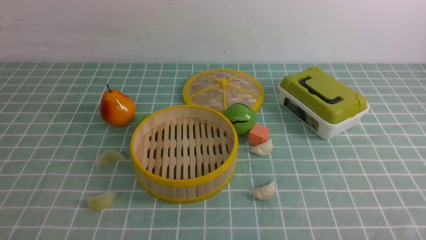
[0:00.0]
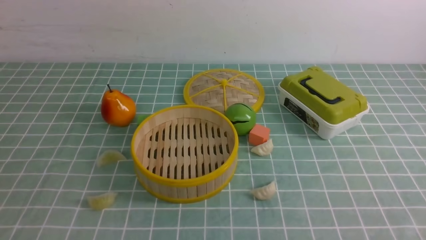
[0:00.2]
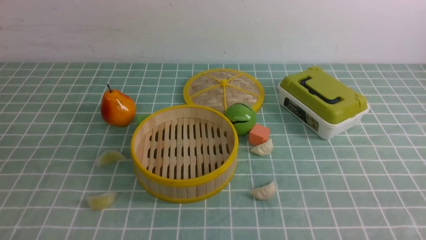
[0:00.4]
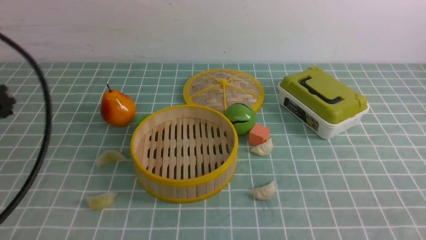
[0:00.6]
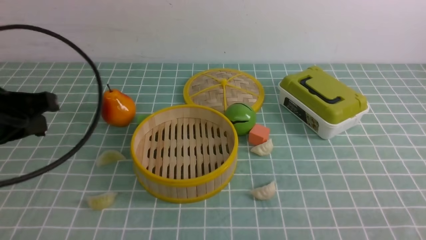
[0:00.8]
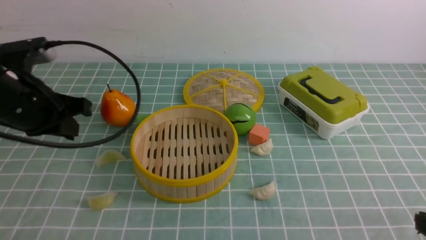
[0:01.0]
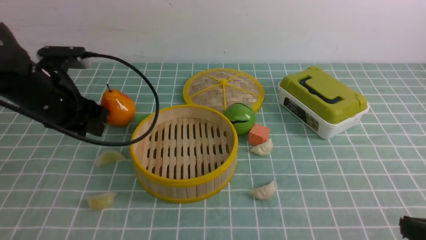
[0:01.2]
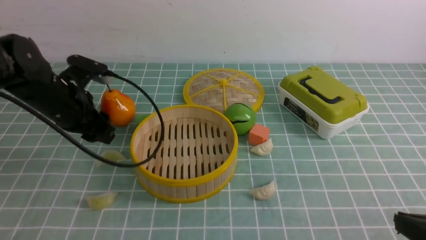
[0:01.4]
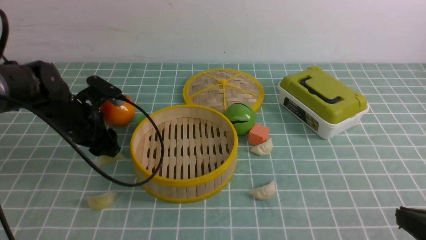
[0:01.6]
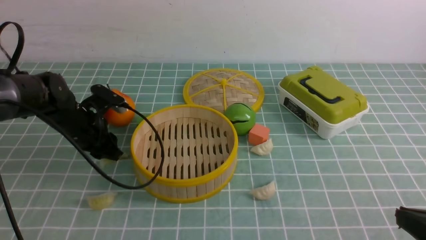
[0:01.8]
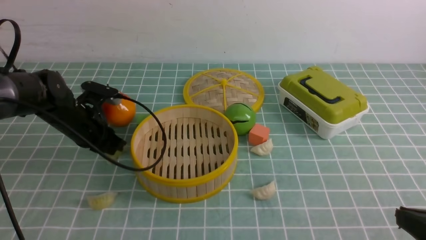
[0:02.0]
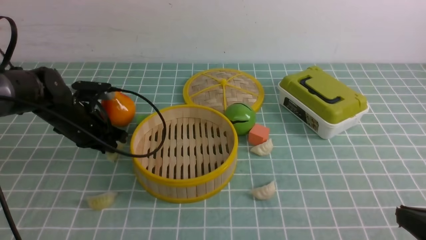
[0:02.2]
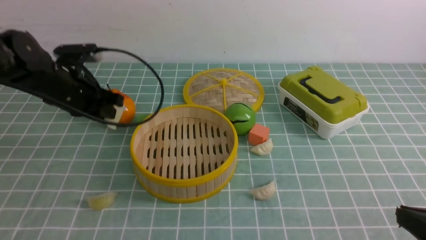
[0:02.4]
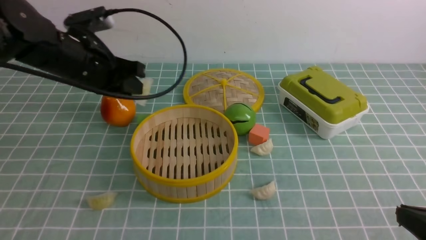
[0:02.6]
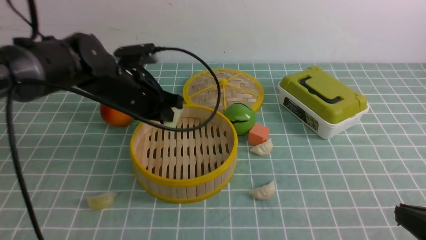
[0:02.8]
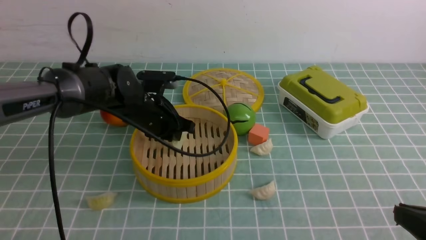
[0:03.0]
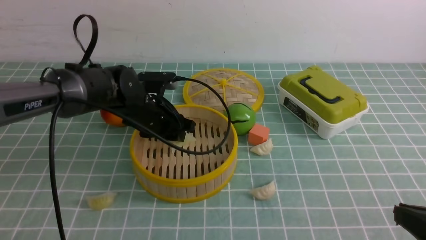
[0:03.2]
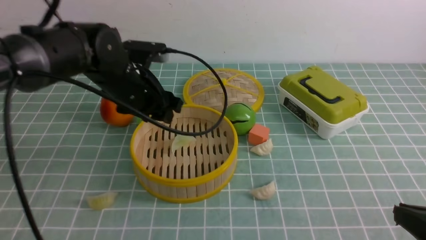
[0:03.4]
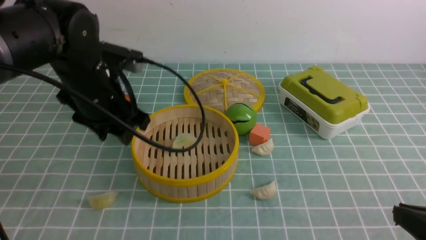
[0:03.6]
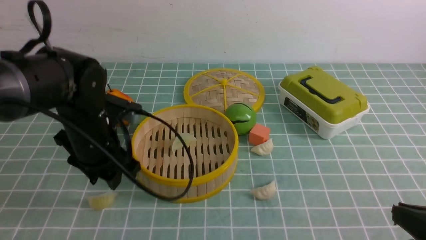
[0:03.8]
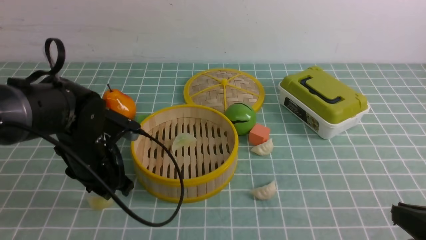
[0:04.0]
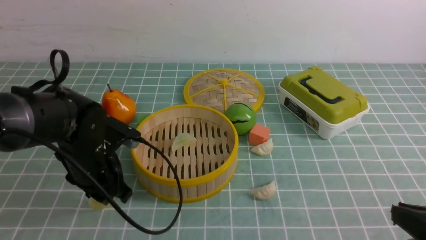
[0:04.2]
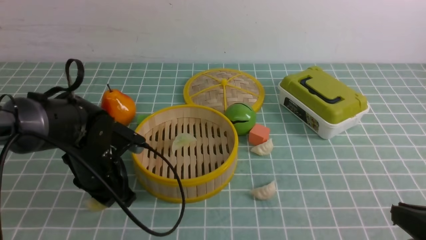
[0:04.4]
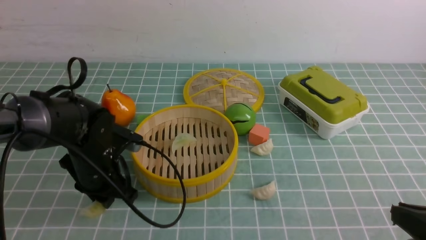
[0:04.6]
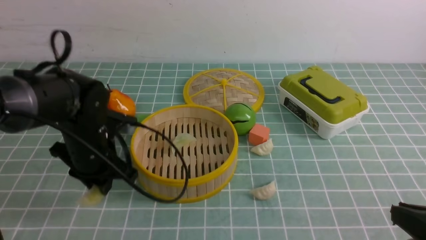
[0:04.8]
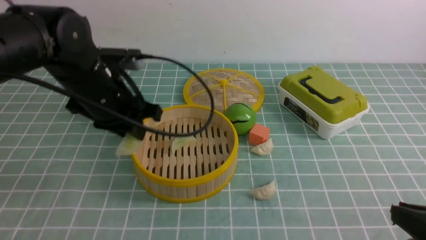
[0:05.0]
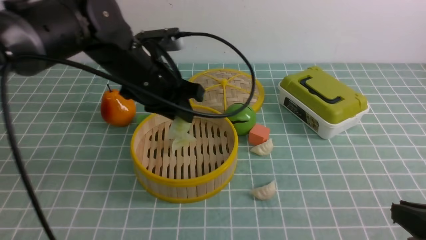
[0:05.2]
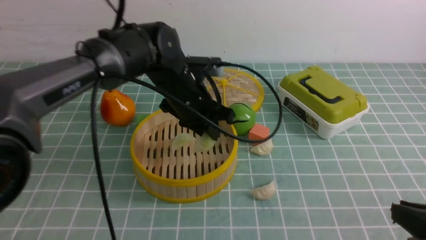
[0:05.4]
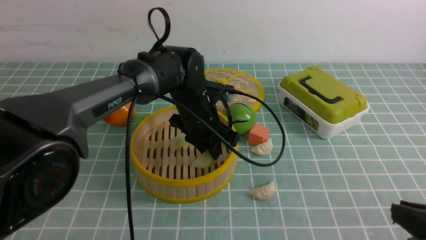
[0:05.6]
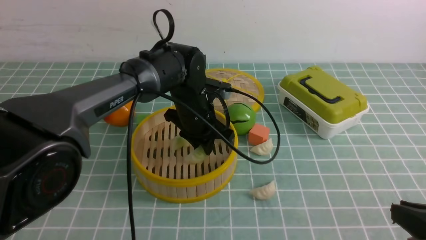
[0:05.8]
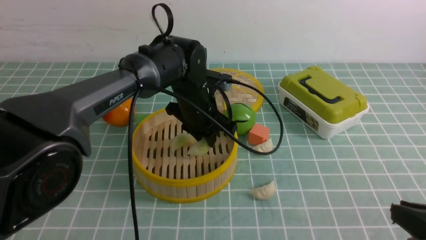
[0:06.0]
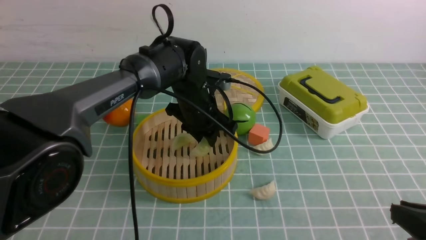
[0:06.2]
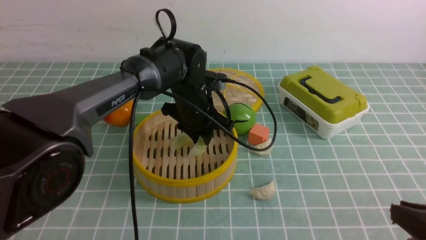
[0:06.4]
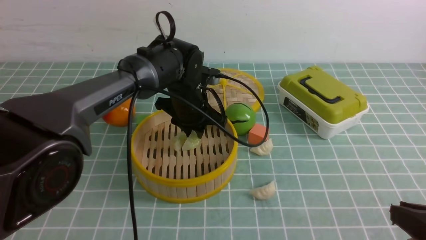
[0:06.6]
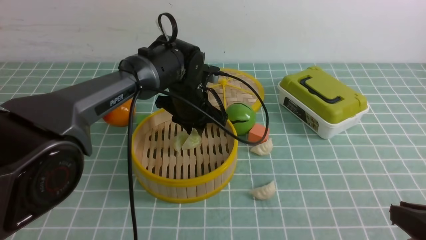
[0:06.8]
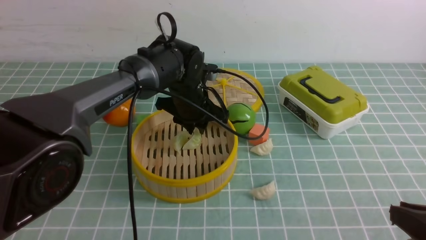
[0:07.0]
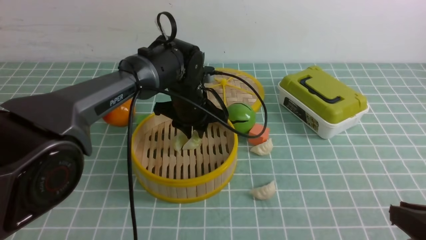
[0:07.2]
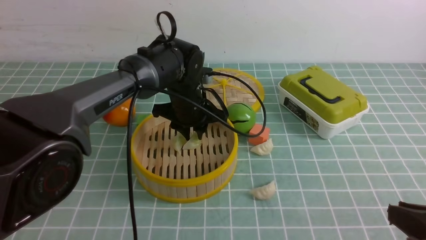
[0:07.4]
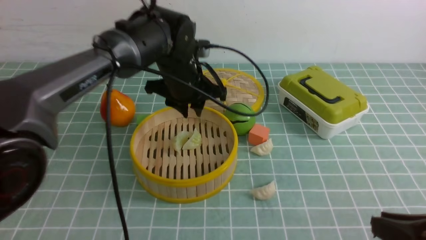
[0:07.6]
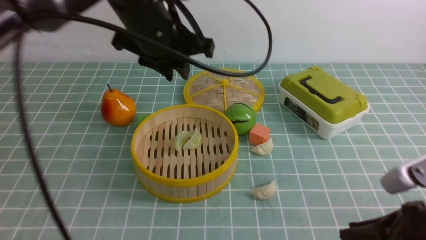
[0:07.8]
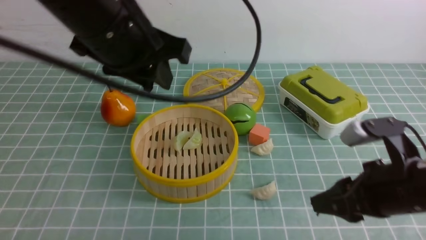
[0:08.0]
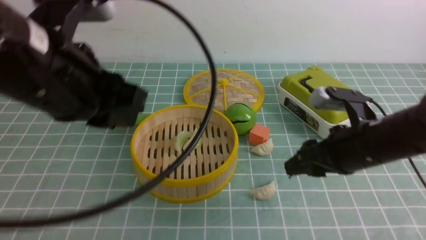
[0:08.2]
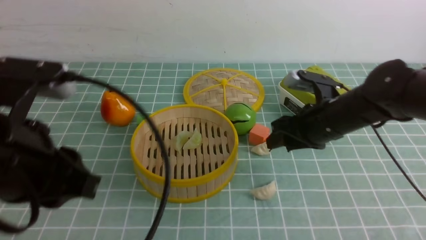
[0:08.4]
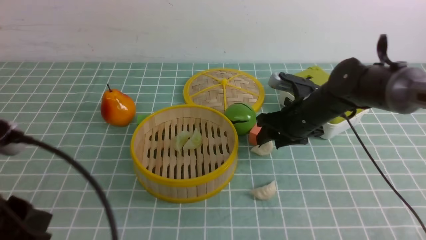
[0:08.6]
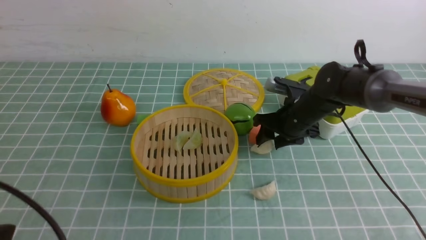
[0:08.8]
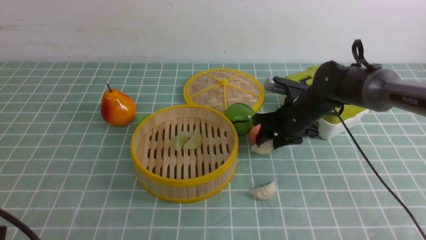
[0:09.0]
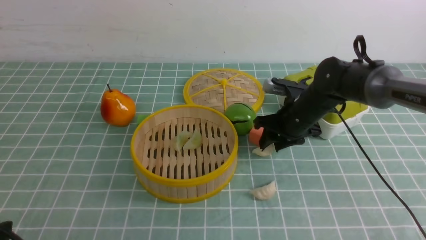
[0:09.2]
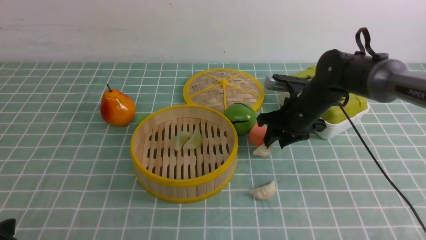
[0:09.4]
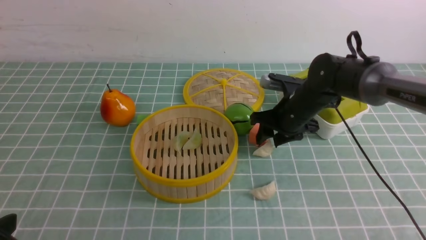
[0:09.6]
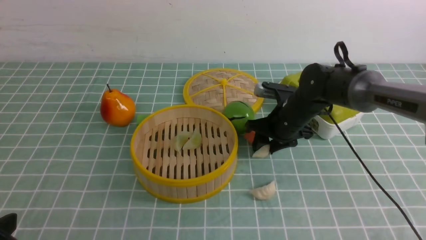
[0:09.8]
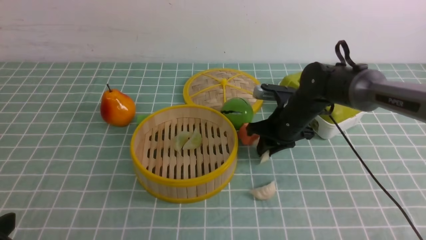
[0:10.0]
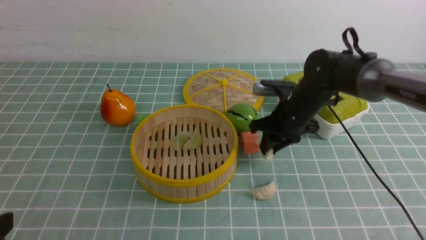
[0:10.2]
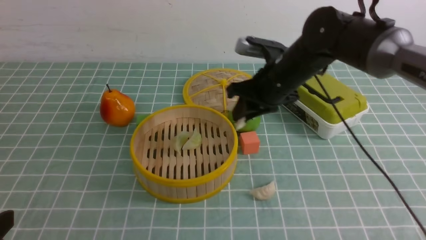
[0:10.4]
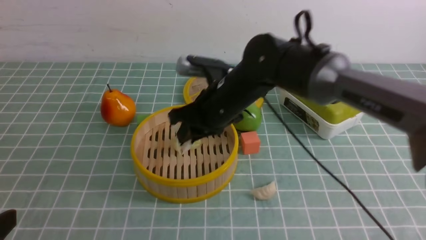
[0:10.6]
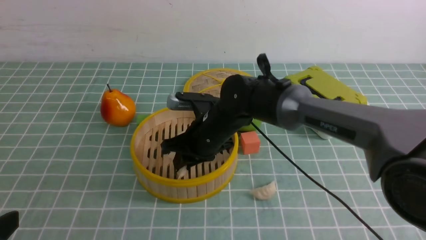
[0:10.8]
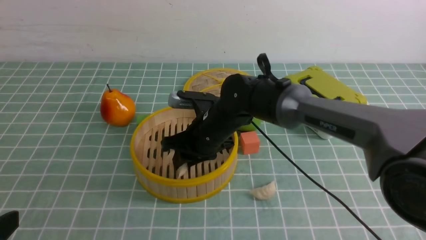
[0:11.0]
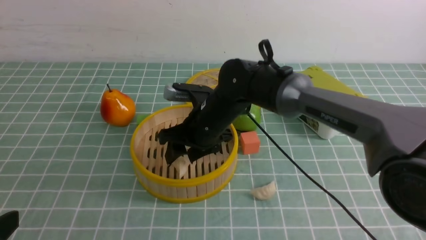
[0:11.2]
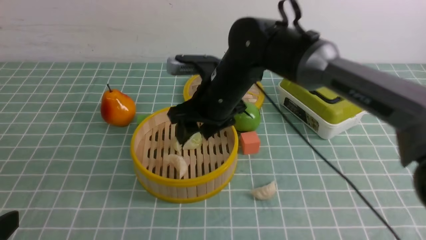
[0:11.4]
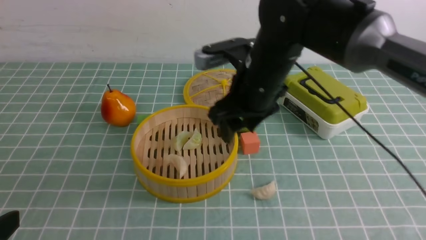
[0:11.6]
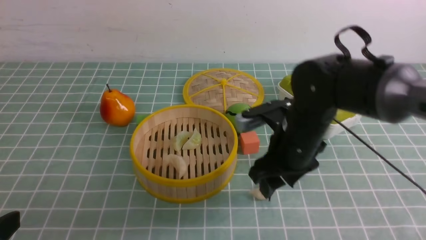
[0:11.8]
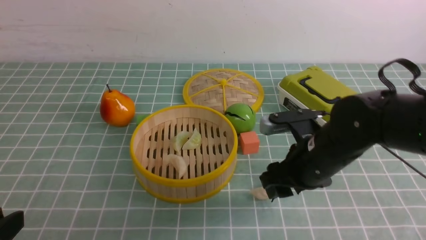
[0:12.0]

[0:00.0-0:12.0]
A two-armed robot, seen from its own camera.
Task of the whole recording: put the dumplings into the steamer on the table with the blue tablecloth.
Step, 0:00.0 to 0:02.6: use the left arm to grab a dumpling.
Step, 0:02.8 to 0:03.6: use the left arm to put the dumpling into the steamer.
Step, 0:03.8 to 0:05.0: use the left arm to grab a dumpling.
Step, 0:05.2 to 0:07.8: use the left arm to put the dumpling into the steamer.
Step, 0:08.0 to 0:10.2: use the right arm to grab a dumpling.
Step, 0:10.4 to 0:11.4: use the right arm to put the dumpling into the steamer.
0:00.0 to 0:01.6: The left gripper goes roughly 35 cm forward, and opens up; the right gripper is displaced forward by about 10 cm.
0:01.6 to 0:03.0: The left gripper heads to the right, covering about 10 cm, and closes.
0:03.0 to 0:04.4: The left gripper travels backward and to the left by about 10 cm.
0:04.4 to 0:06.0: The left gripper moves to the right and forward, roughly 20 cm.
0:06.0 to 0:07.6: The left gripper moves upward, some 10 cm.
0:07.6 to 0:09.0: The right gripper heads forward, covering roughly 30 cm, and opens up. Meanwhile the left gripper travels backward and to the left by some 40 cm.
0:09.0 to 0:10.4: The right gripper goes approximately 10 cm to the left and upward, and closes up.
0:10.4 to 0:12.0: The right gripper heads backward and to the right, covering roughly 10 cm, and opens its fingers.

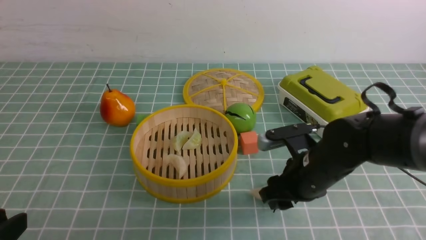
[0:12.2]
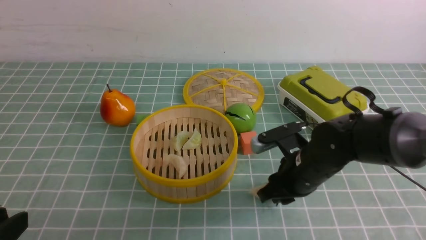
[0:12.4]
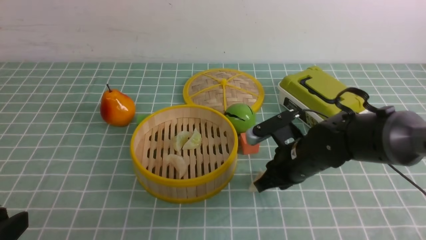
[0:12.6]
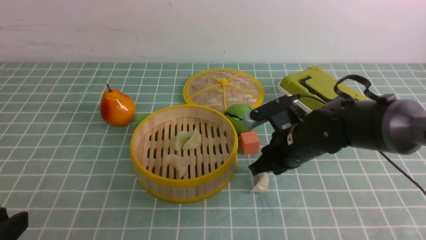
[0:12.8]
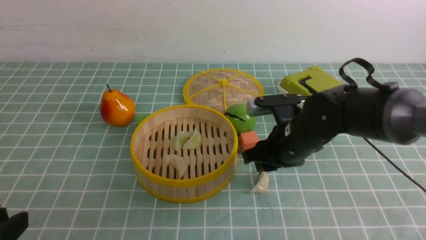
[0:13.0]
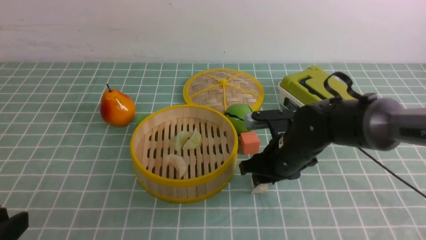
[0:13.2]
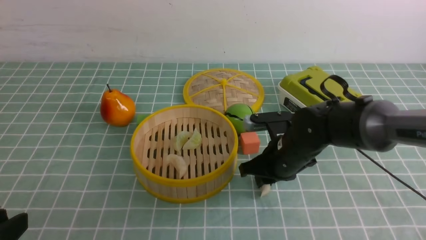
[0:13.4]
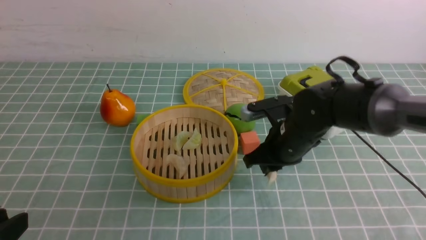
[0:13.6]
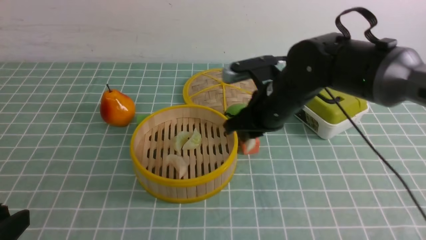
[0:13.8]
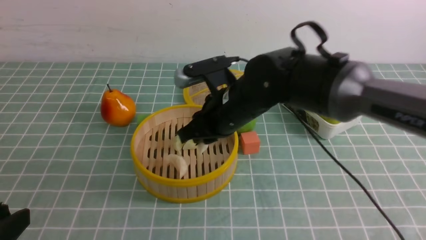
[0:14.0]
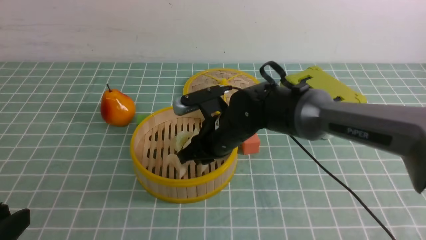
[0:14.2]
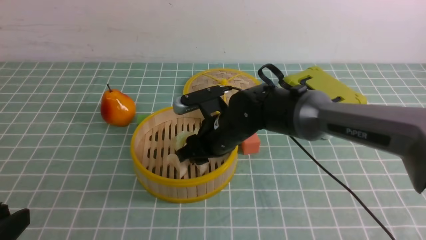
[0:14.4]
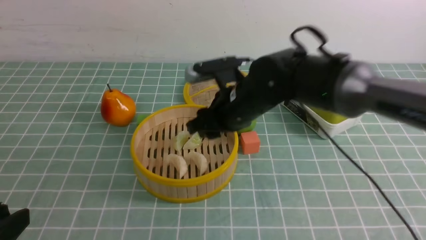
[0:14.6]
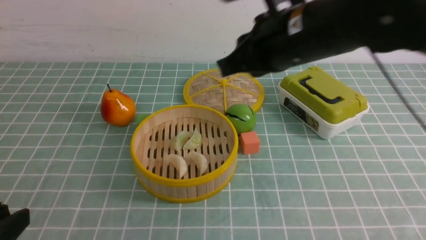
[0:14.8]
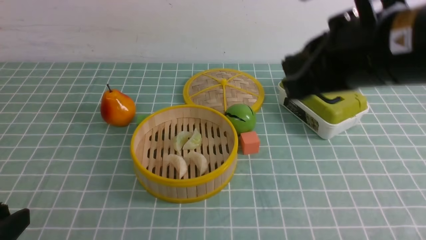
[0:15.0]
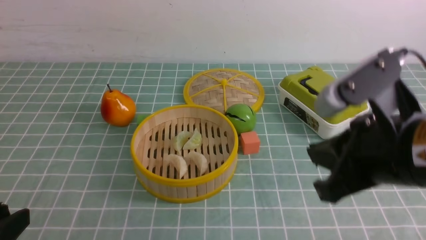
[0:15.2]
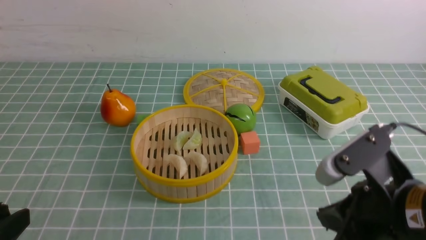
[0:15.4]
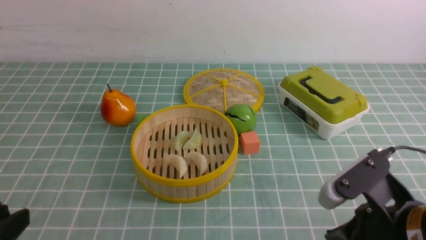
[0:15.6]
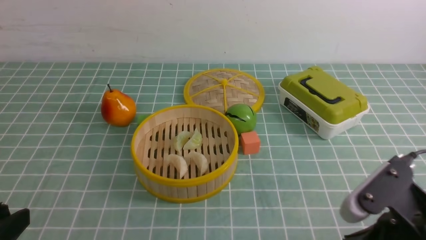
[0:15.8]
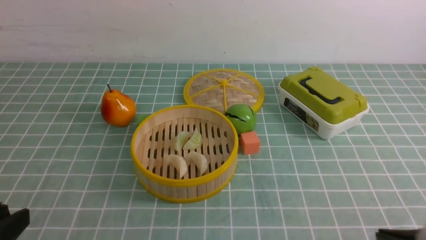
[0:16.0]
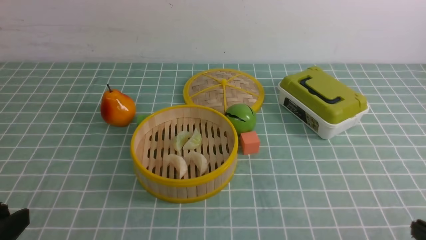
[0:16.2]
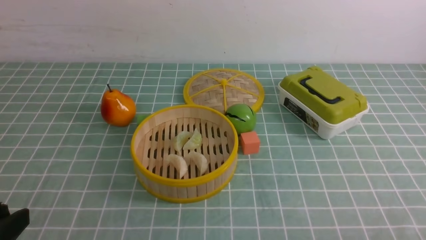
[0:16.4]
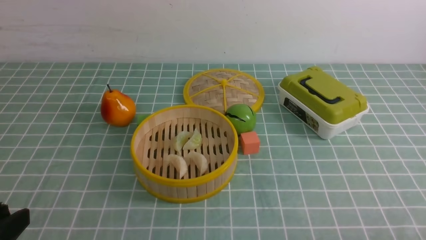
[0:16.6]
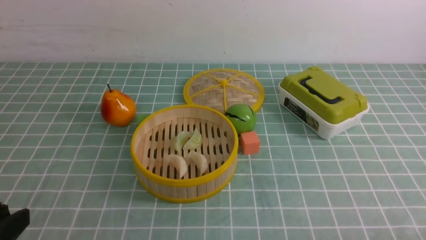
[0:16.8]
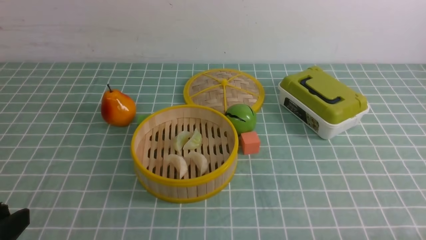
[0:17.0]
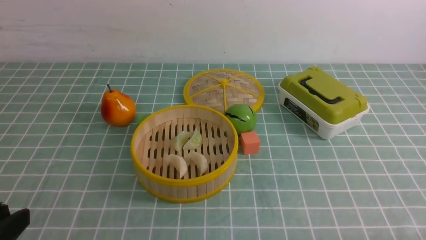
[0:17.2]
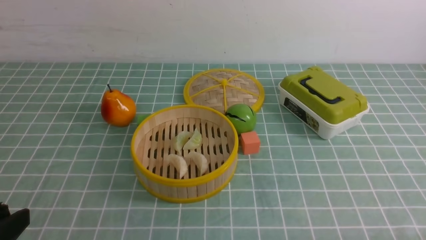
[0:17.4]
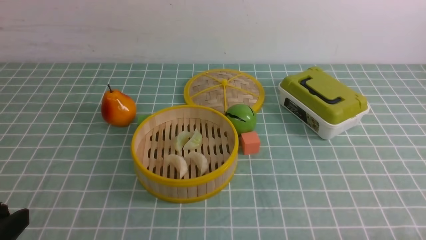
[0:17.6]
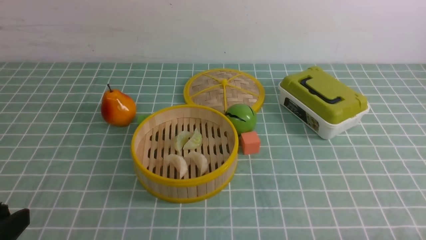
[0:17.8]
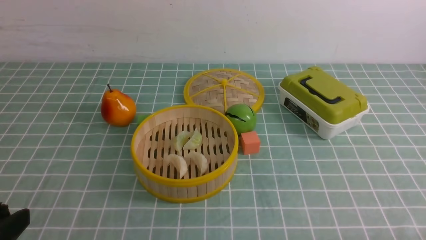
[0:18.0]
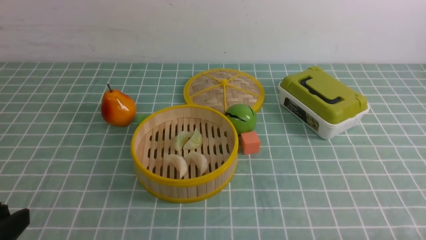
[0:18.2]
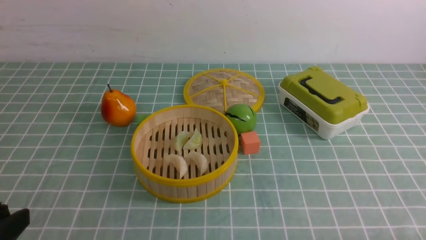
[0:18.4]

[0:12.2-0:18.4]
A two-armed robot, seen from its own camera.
Task of the whole recording: put the dumplings into the steamer on the table with the blue tablecloth.
Step, 0:12.2 to 0:13.8: use the right arm to grab a dumpling.
Step, 0:14.0 to 0:14.8: use the right arm to put the dumpling into the steamer.
0:12.2 to 0:13.8: The right gripper heads to the left, upward and forward, covering approximately 10 cm, and closes.
0:13.8 to 0:15.4: The right gripper is displaced backward and to the right by some 20 cm, and closes up.
0:15.4 to 0:16.8: The right gripper moves to the right, backward and downward, about 20 cm.
